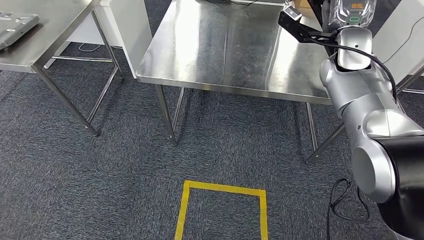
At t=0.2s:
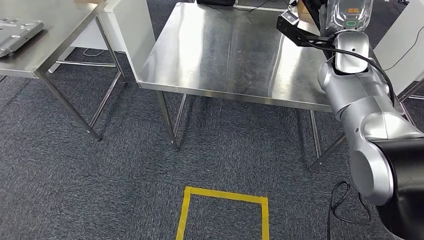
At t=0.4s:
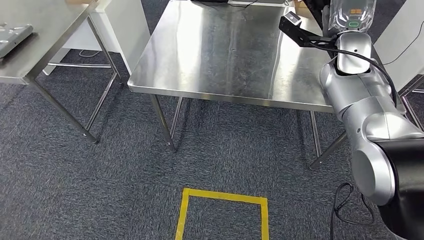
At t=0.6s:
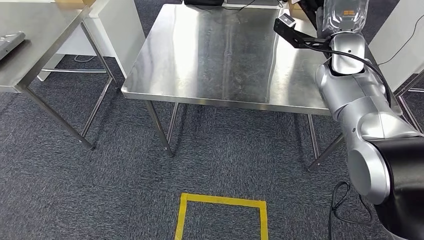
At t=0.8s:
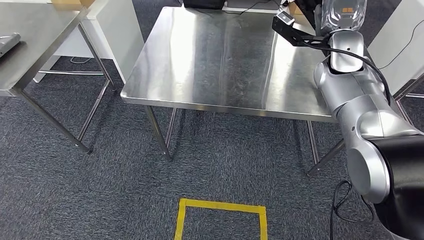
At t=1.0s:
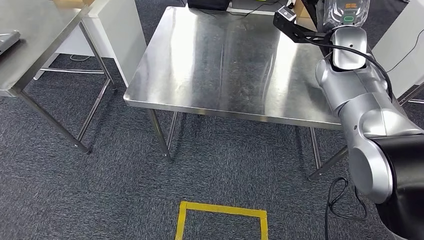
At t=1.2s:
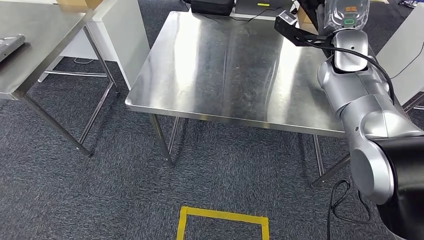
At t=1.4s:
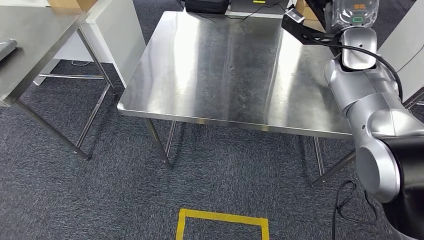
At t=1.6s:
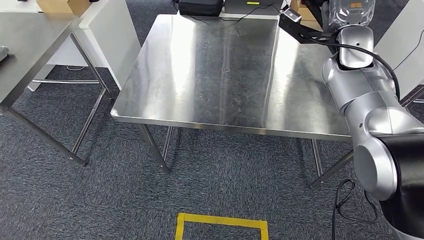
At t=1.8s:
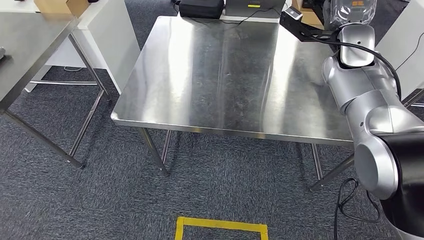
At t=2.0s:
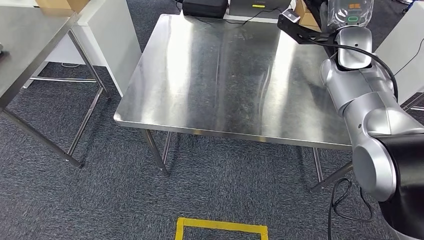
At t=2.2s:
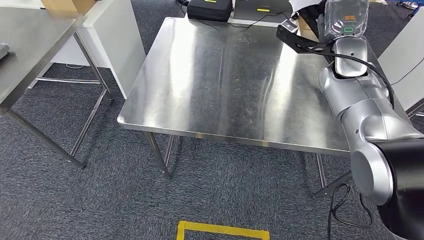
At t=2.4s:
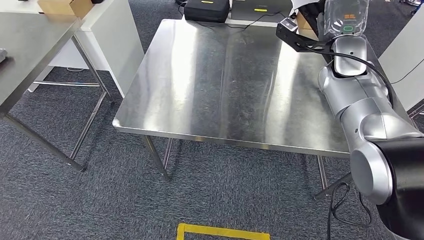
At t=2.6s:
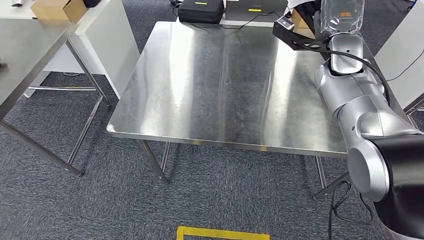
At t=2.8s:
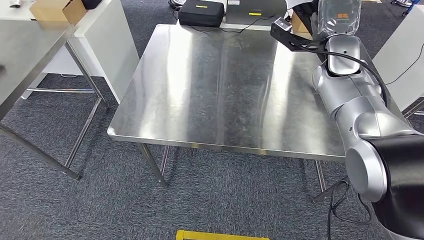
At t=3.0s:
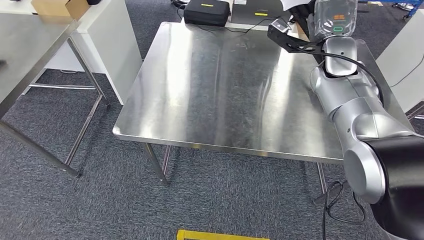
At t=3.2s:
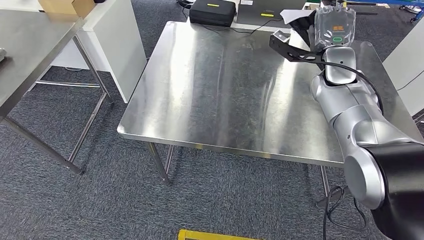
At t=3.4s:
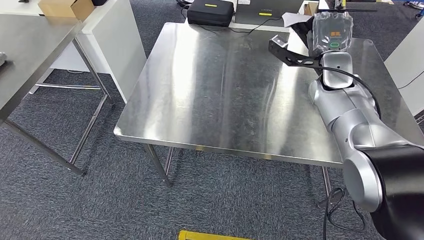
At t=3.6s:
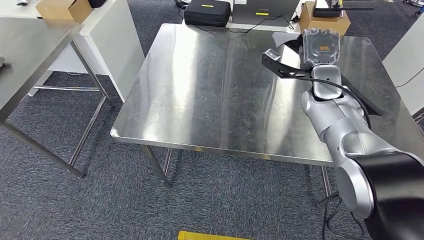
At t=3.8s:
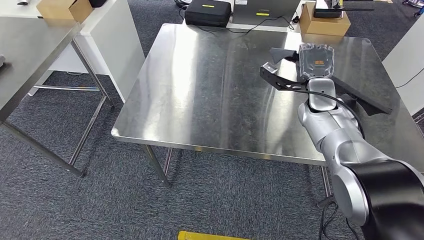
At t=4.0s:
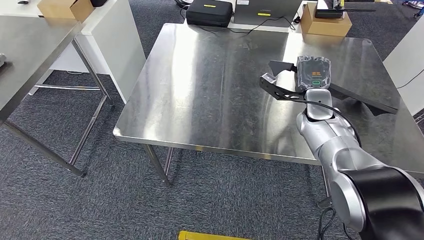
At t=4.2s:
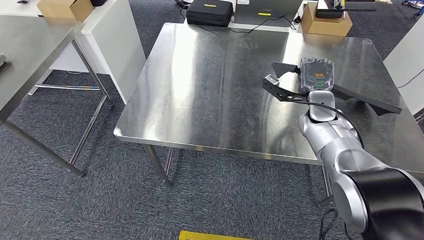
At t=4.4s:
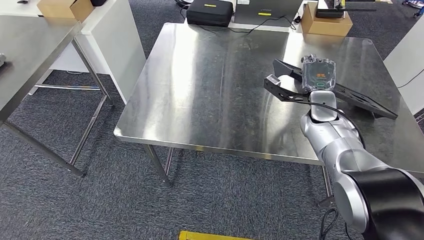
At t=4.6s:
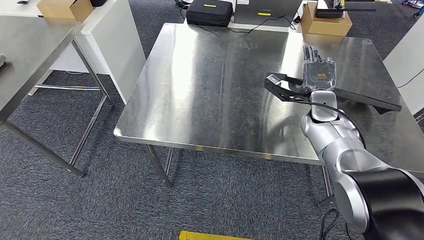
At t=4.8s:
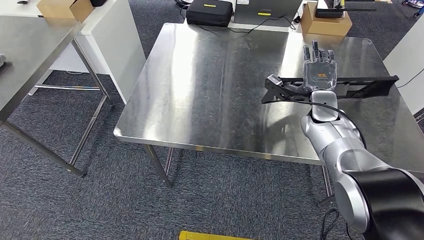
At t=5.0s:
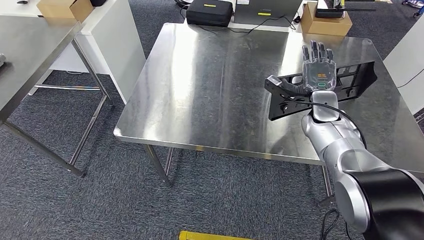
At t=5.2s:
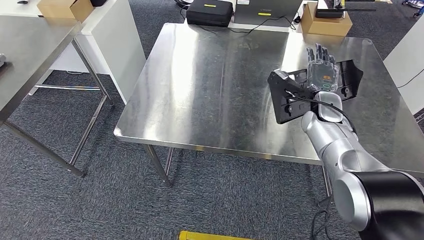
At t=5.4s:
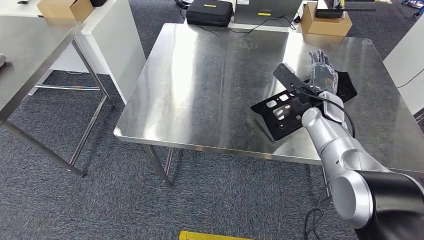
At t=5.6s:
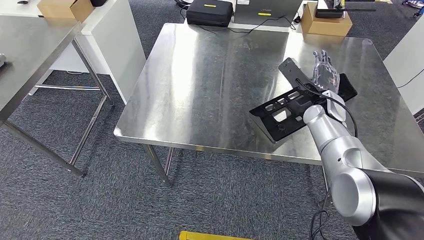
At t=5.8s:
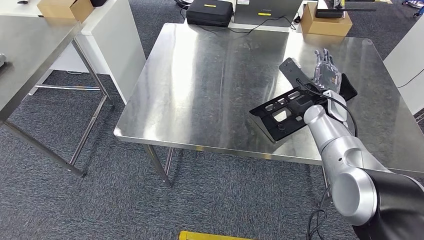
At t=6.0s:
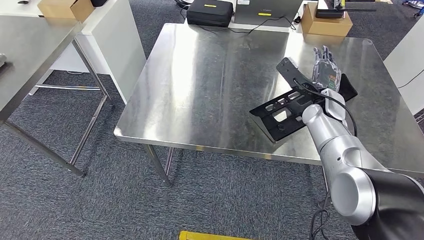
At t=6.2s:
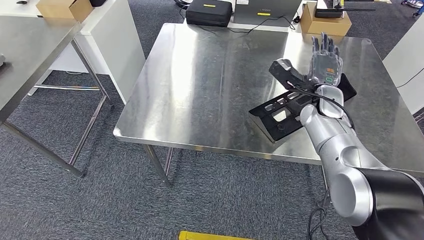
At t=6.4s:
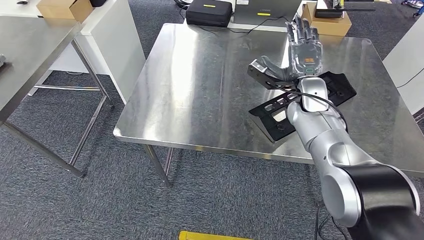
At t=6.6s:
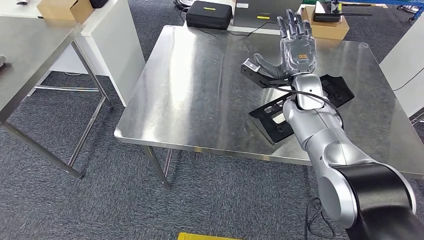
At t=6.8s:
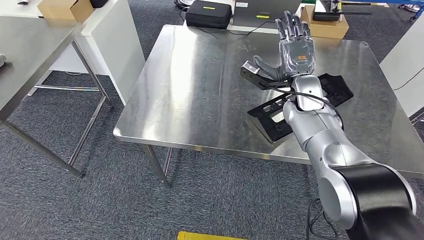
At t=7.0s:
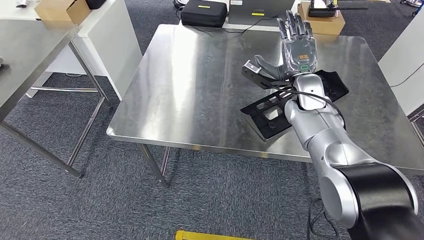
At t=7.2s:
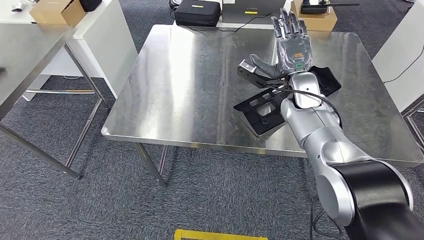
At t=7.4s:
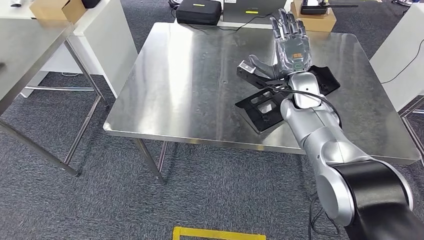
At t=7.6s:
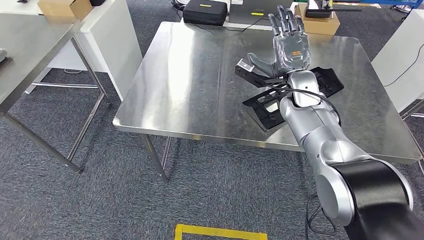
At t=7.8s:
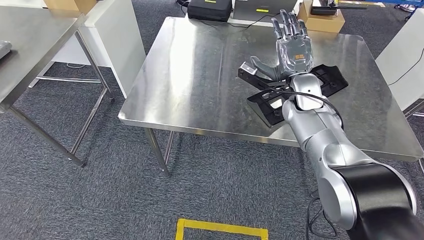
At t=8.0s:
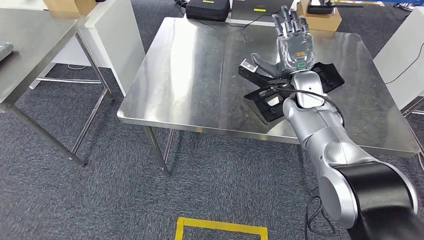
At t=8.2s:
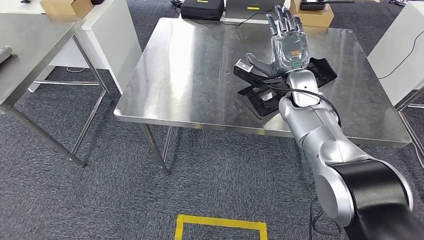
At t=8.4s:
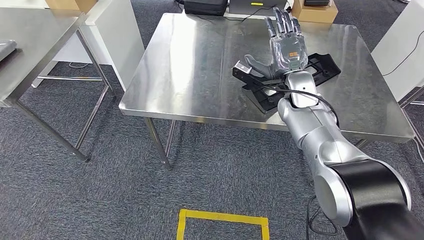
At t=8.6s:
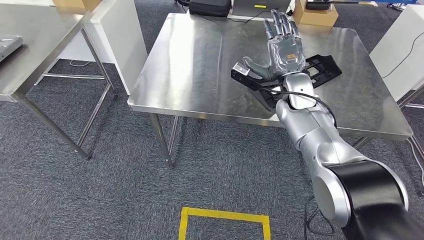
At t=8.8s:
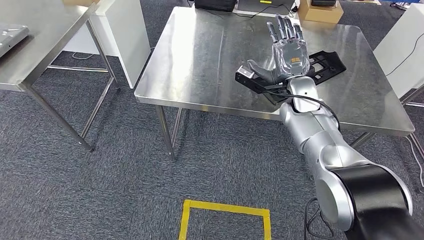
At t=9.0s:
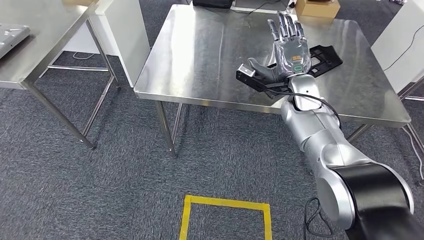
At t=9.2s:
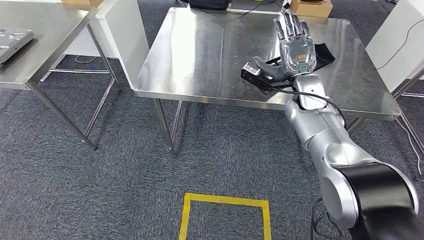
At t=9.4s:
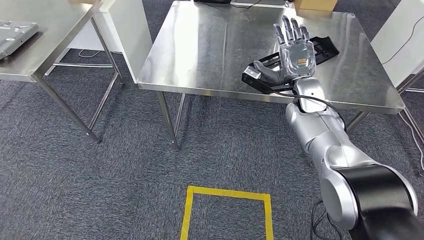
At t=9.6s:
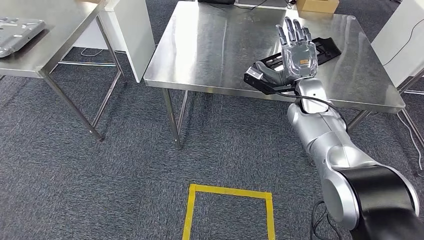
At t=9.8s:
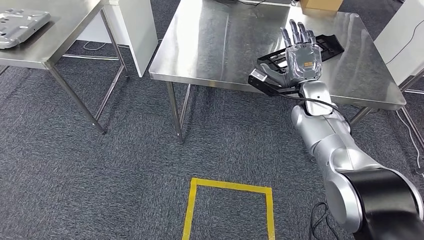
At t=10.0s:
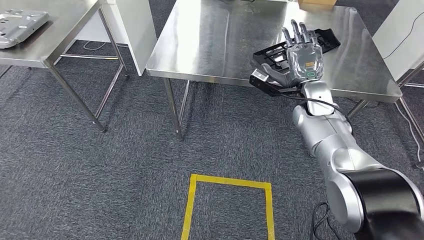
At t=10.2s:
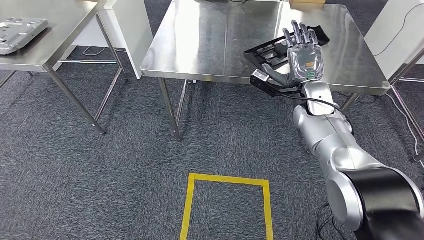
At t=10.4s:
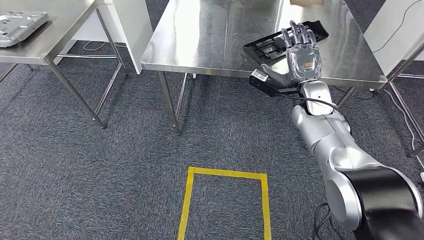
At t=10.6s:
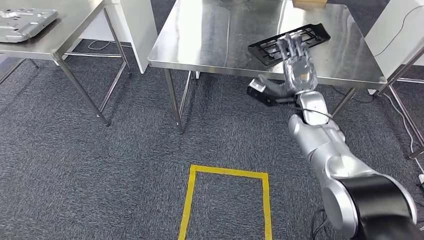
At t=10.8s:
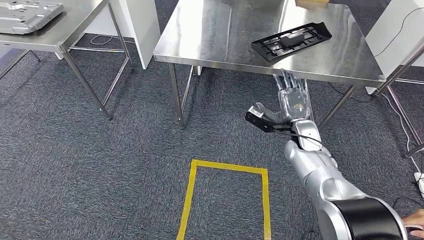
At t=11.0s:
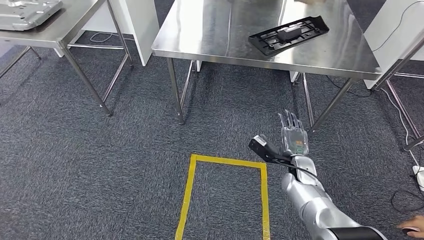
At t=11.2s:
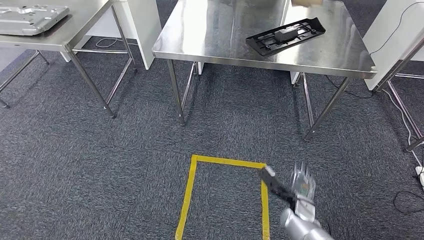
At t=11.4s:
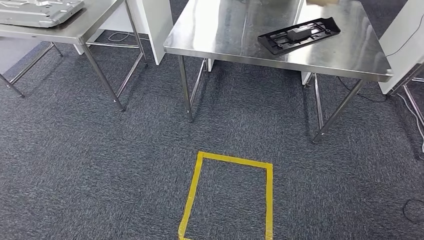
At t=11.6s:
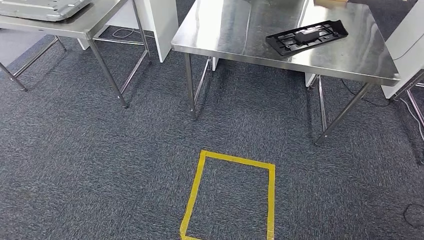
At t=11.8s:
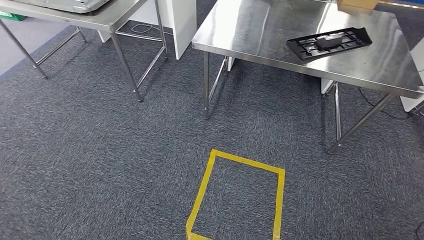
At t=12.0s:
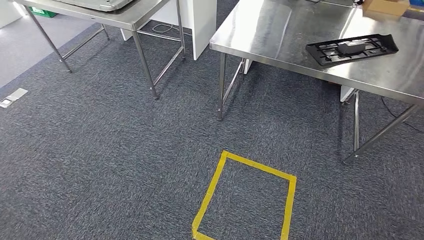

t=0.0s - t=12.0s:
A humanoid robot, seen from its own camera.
Step, t=0.0s - t=6.6s: Insert the large material into the corresponding slot on the workbench.

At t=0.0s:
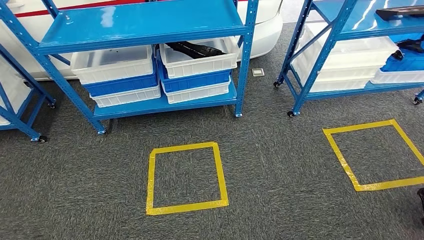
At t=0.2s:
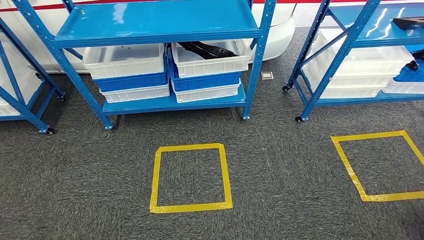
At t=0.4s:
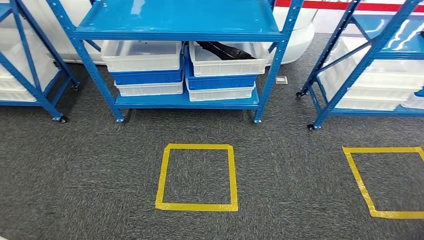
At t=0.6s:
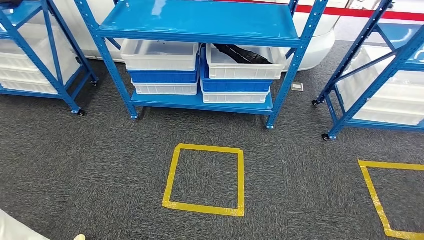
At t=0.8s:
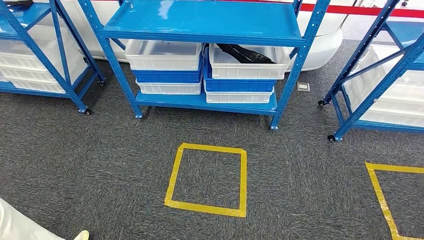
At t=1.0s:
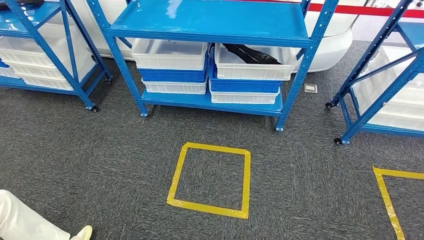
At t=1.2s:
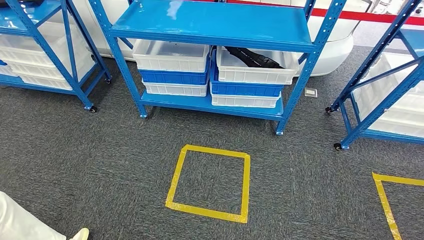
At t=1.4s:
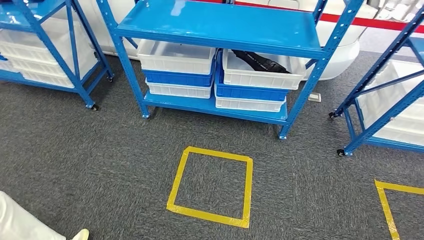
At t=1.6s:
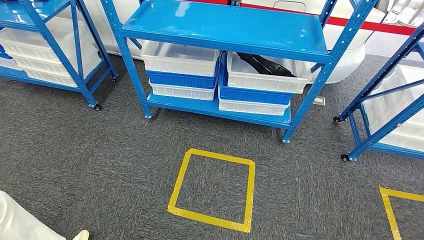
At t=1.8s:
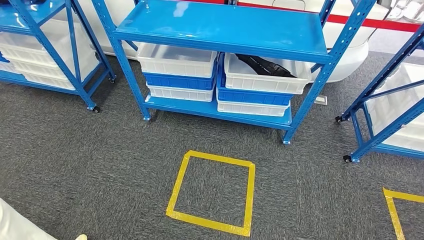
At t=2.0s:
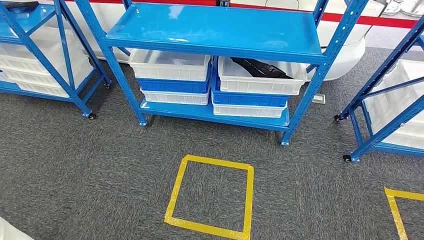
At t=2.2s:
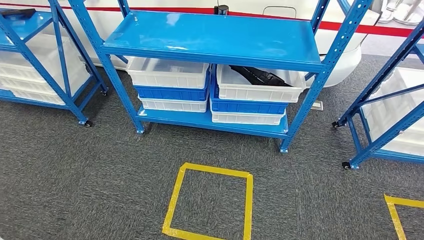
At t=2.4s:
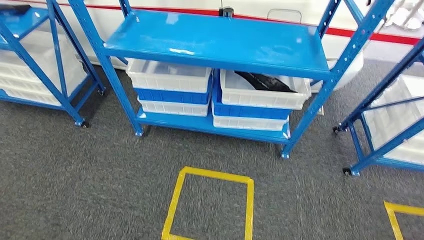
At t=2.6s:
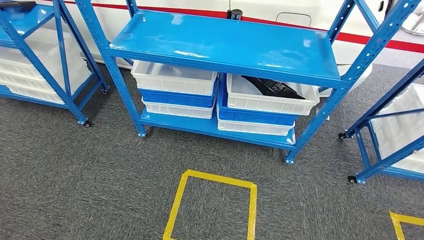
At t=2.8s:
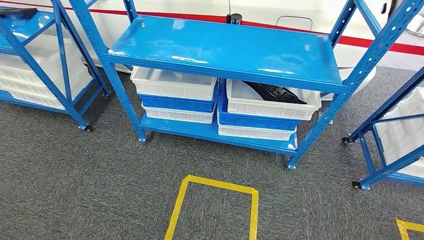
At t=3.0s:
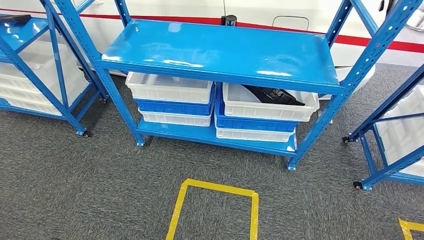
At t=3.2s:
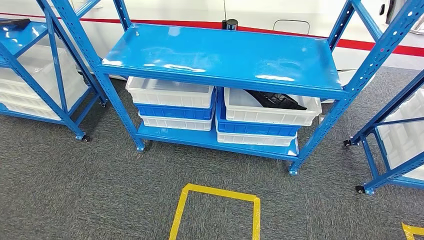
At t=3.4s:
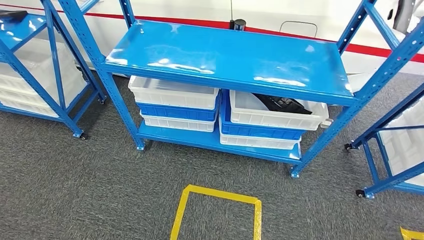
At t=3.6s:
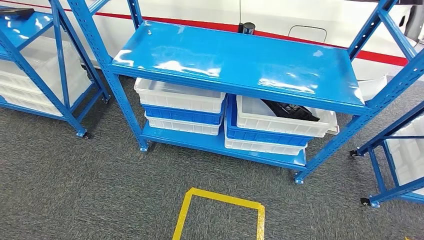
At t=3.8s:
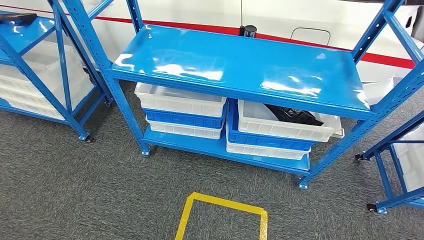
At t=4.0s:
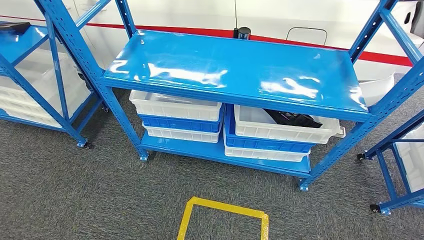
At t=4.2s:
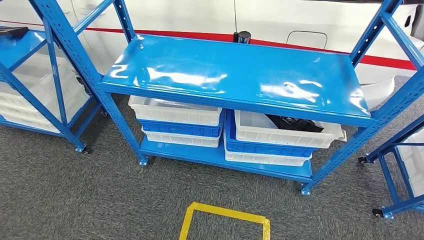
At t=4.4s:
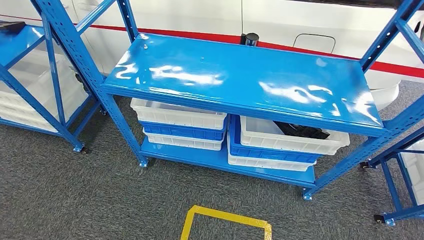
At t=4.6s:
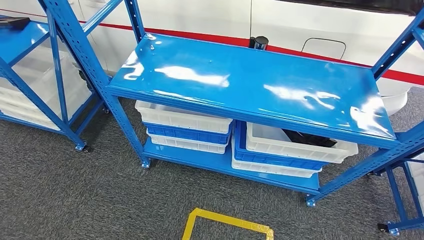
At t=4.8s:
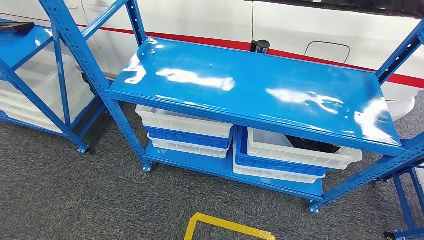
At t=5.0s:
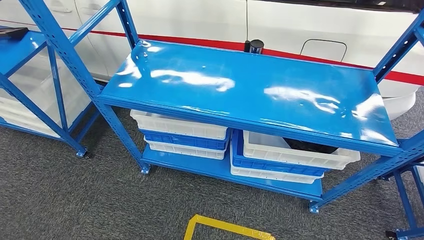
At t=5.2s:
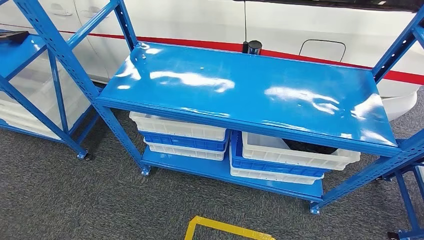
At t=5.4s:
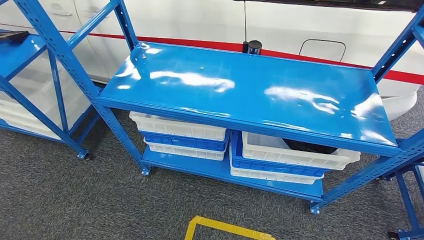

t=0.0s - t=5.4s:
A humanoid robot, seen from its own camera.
Step, t=0.0s - t=5.4s: Return to the initial position at the shelf.
